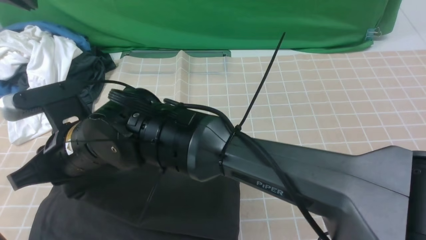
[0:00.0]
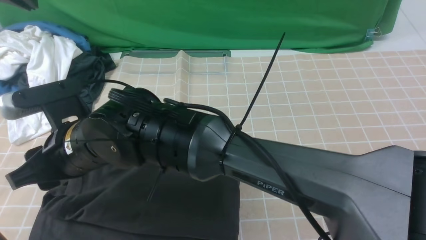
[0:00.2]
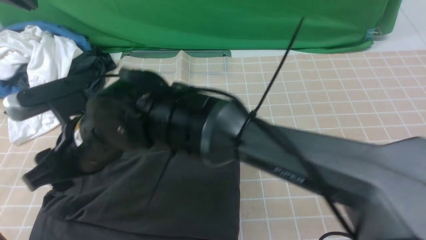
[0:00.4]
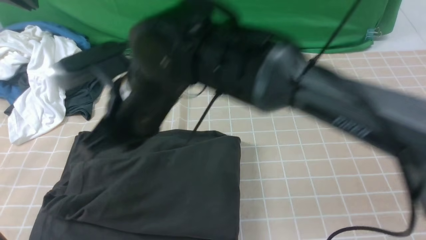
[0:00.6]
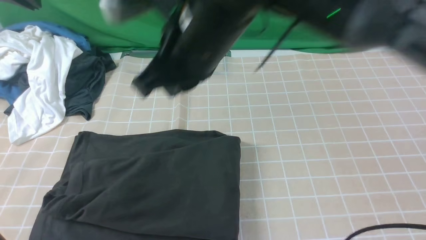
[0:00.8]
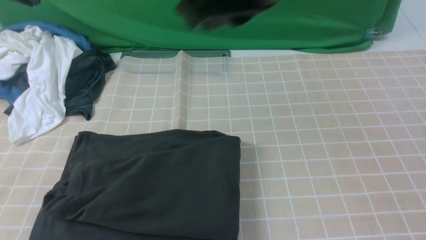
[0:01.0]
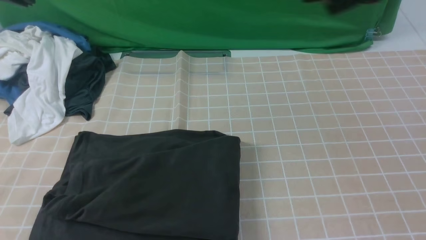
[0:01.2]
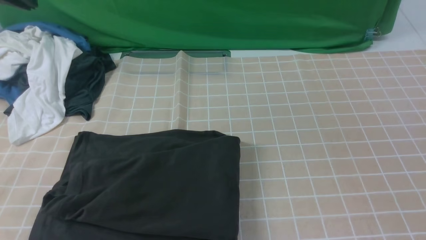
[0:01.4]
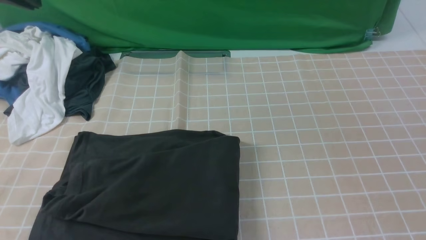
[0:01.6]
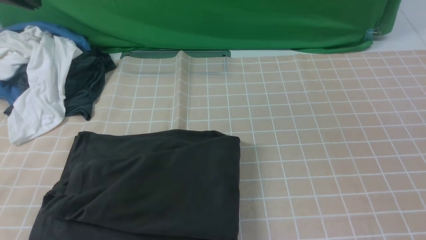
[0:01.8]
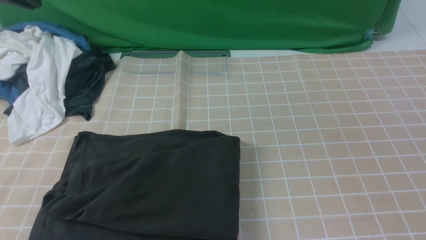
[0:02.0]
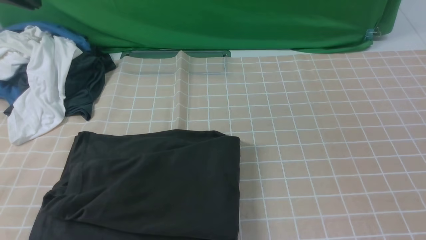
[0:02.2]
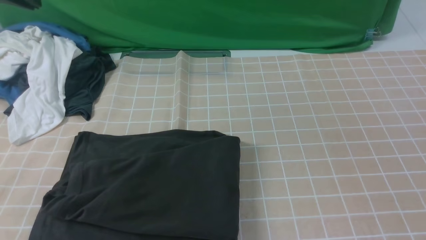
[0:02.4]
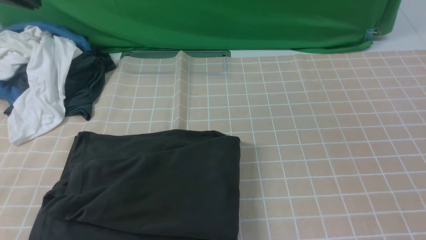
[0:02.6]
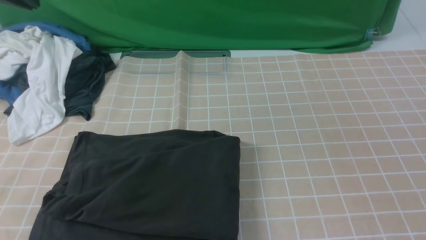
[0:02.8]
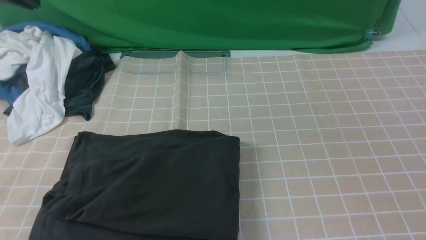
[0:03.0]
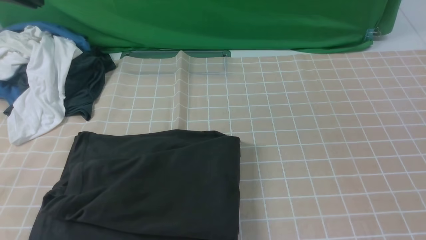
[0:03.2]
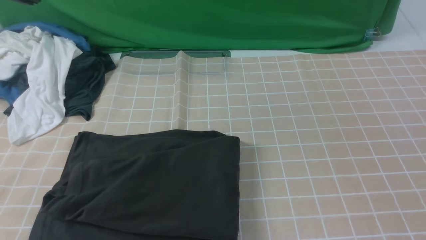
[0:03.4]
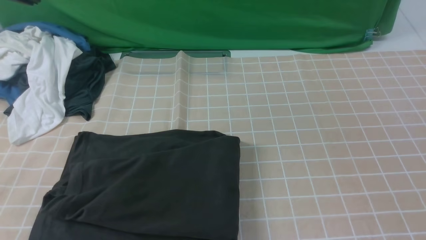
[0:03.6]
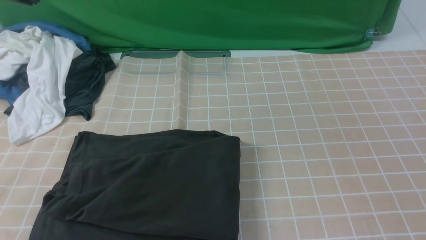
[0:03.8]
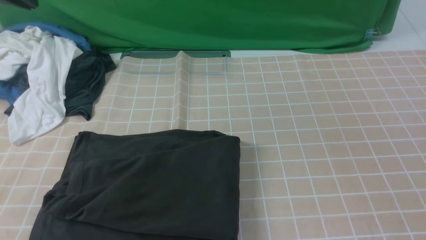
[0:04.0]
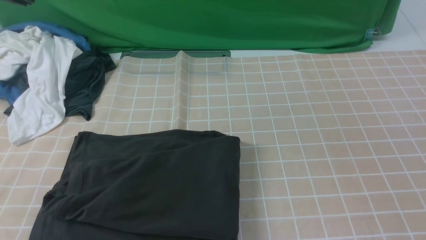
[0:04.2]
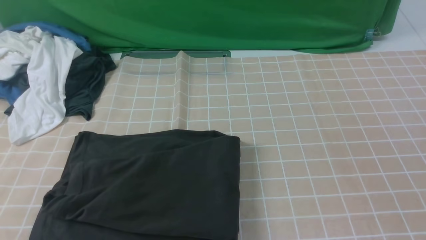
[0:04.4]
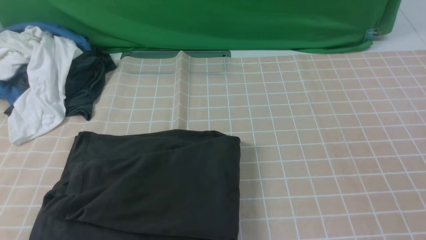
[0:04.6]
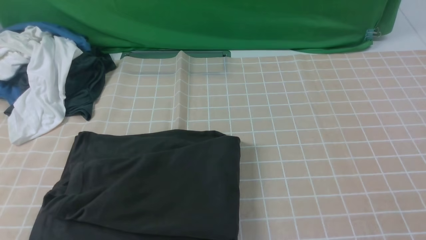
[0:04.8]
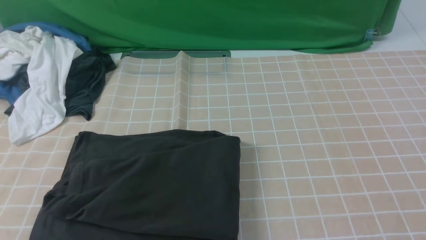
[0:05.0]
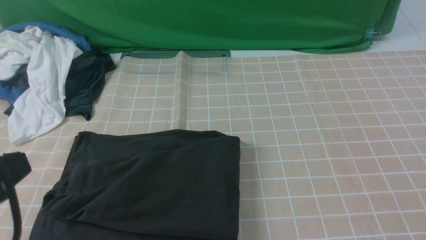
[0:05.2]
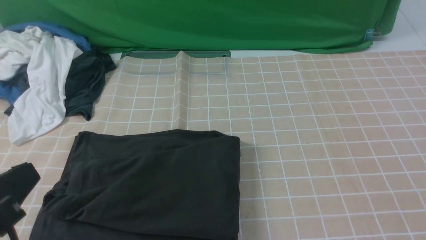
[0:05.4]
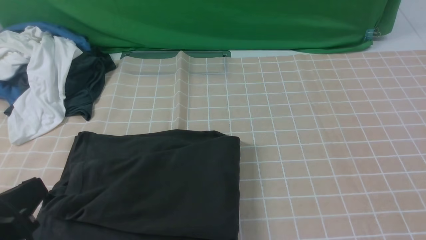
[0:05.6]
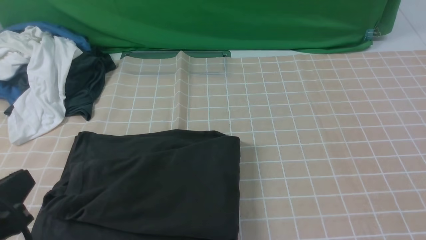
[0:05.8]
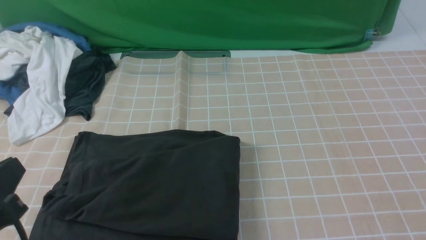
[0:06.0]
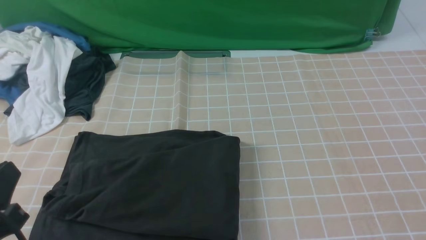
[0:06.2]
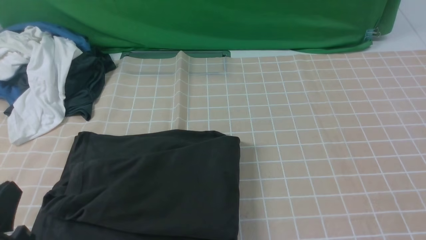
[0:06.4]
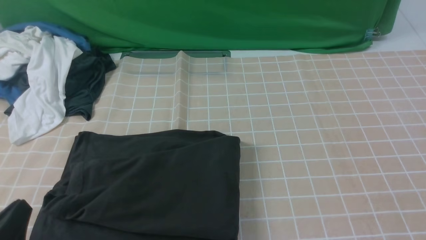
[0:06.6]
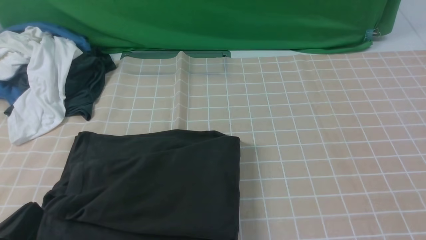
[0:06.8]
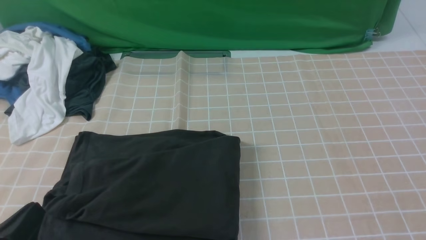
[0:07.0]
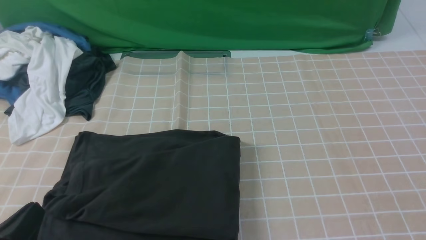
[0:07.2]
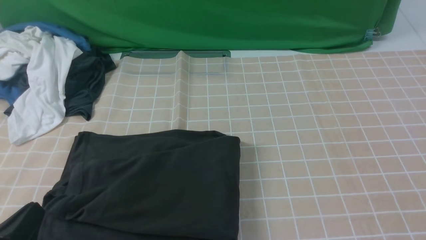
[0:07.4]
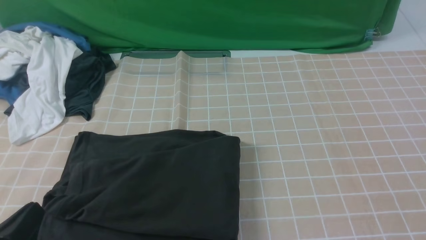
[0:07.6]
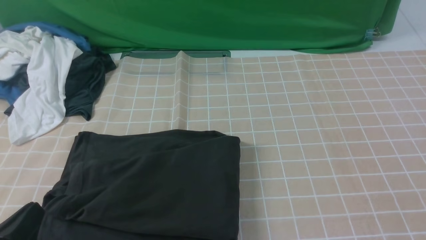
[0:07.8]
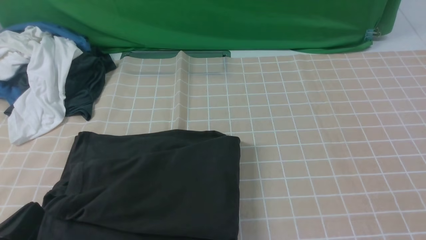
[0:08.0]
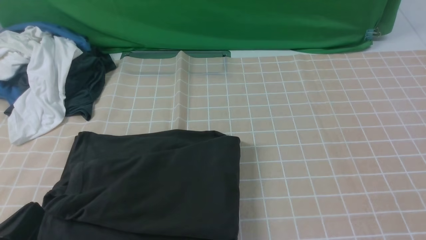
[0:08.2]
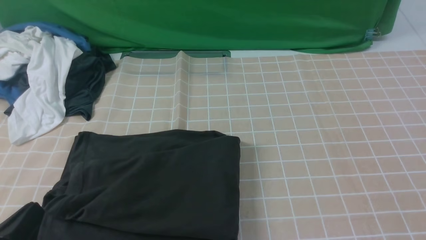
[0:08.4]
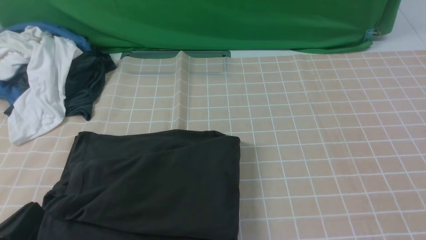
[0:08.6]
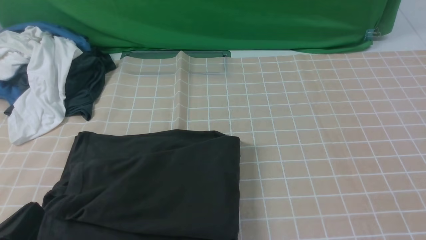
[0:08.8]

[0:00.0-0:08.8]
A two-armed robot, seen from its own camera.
0:00.0 to 0:01.4: The right gripper is displaced to the right and upward by some 50 cm, and closes up.
0:04.4 to 0:05.8: The left gripper goes about 30 cm downward and backward.
0:05.8 to 0:07.4: The left gripper moves downward, roughly 10 cm.
0:07.4 to 0:08.8: Neither gripper changes place.

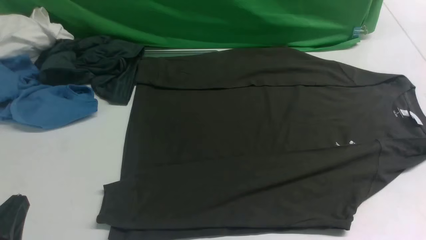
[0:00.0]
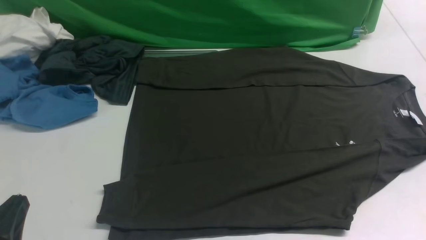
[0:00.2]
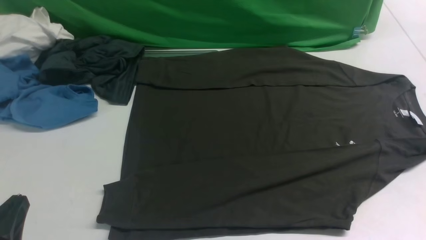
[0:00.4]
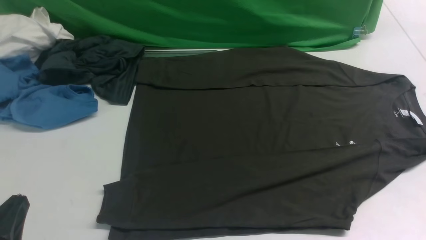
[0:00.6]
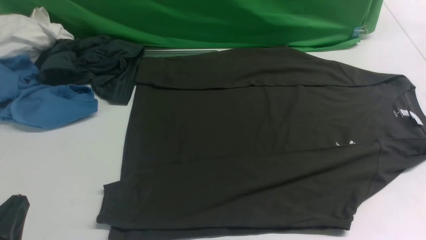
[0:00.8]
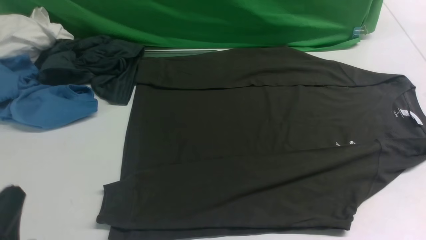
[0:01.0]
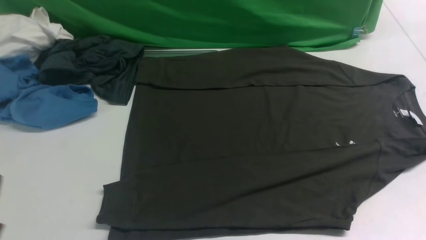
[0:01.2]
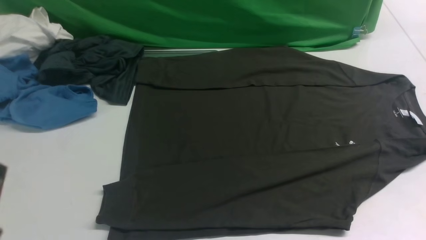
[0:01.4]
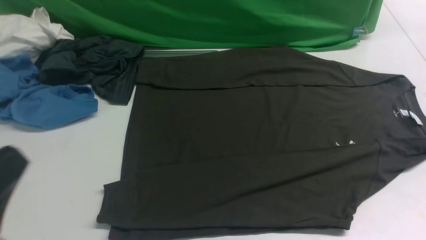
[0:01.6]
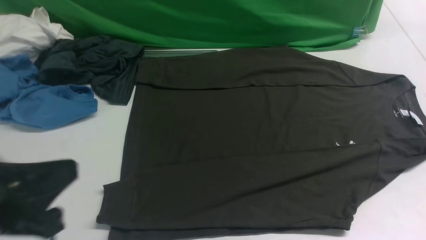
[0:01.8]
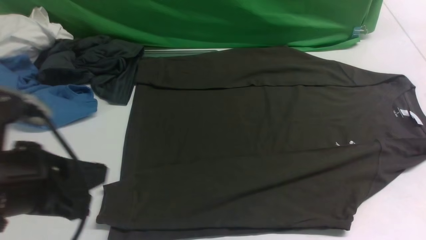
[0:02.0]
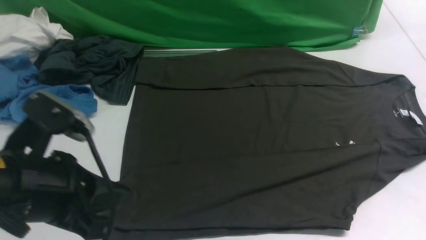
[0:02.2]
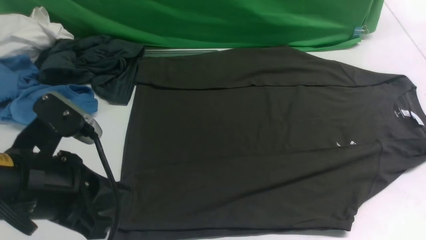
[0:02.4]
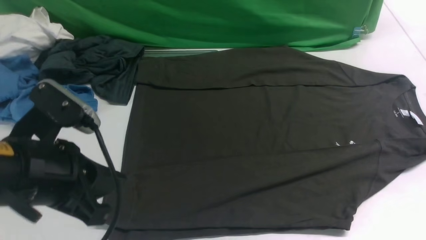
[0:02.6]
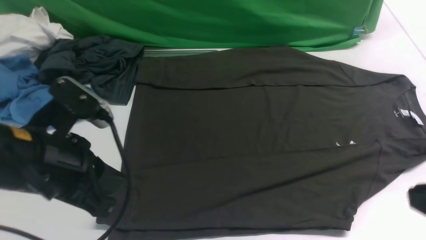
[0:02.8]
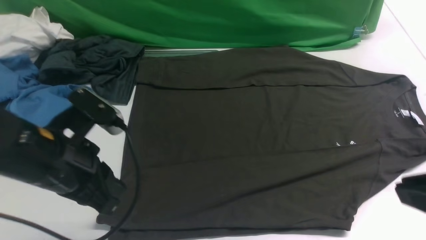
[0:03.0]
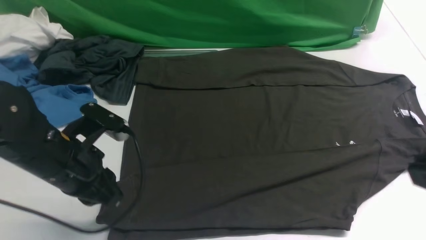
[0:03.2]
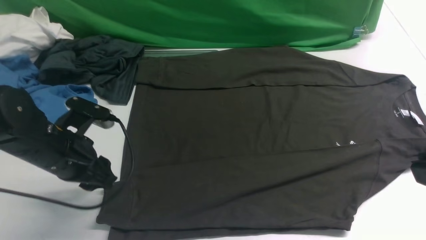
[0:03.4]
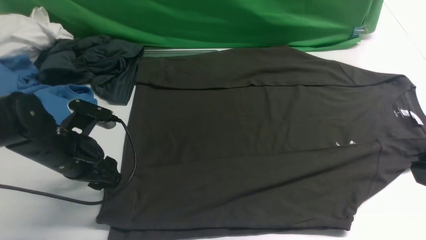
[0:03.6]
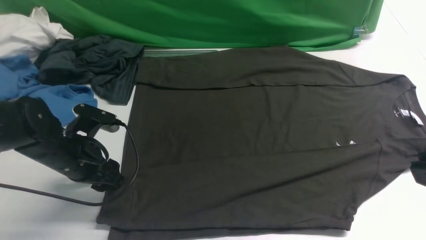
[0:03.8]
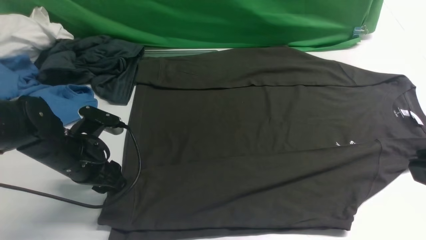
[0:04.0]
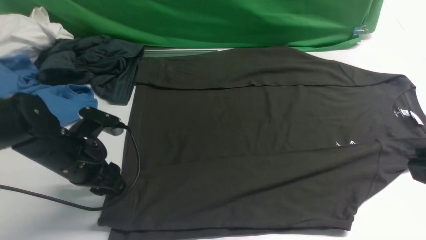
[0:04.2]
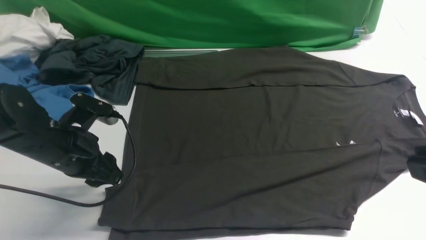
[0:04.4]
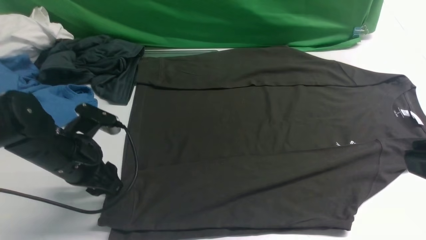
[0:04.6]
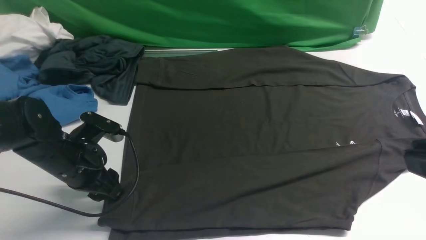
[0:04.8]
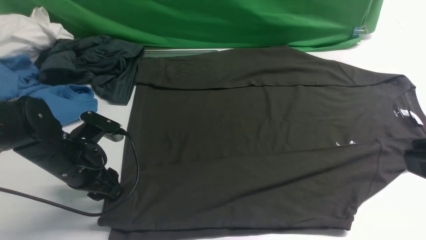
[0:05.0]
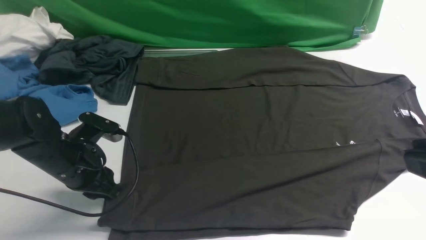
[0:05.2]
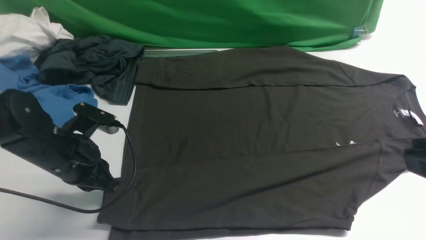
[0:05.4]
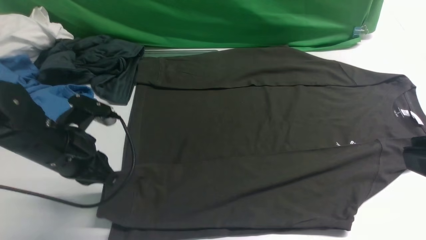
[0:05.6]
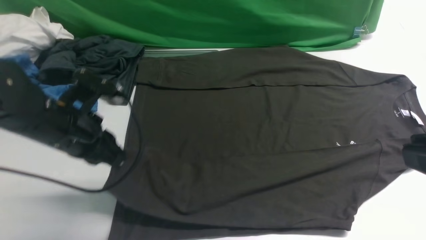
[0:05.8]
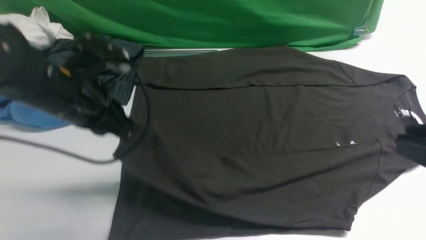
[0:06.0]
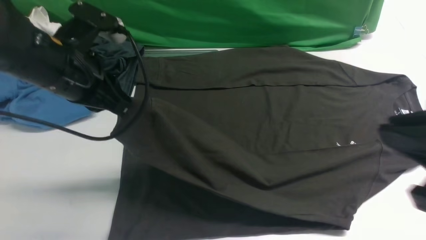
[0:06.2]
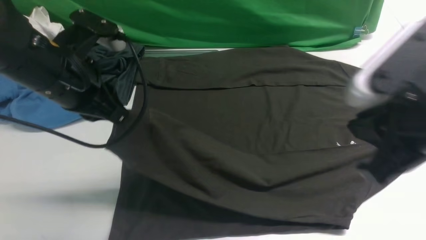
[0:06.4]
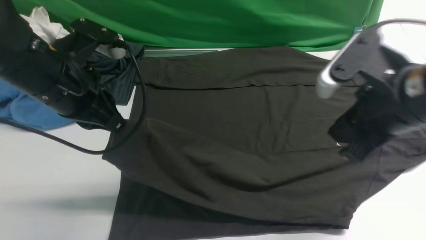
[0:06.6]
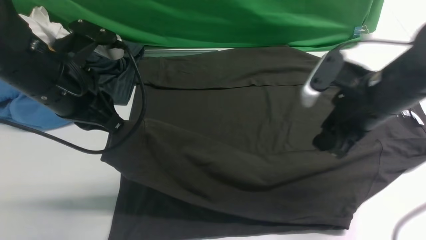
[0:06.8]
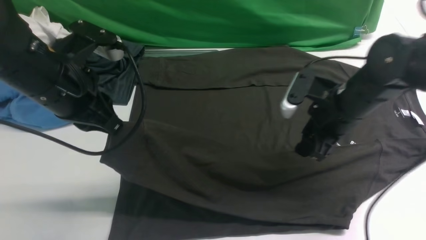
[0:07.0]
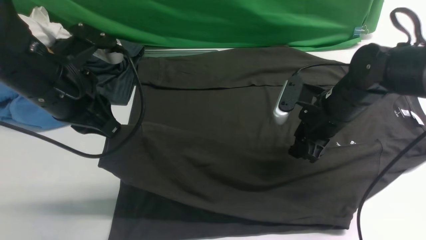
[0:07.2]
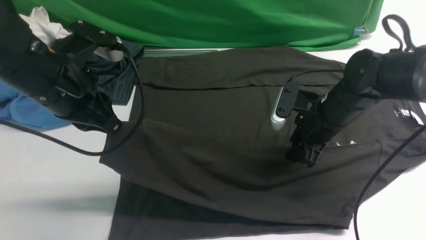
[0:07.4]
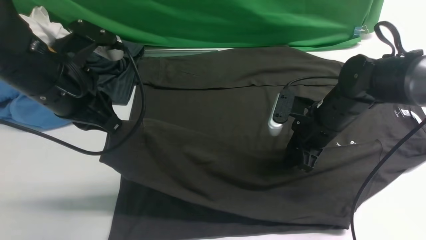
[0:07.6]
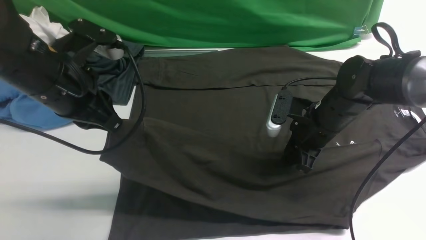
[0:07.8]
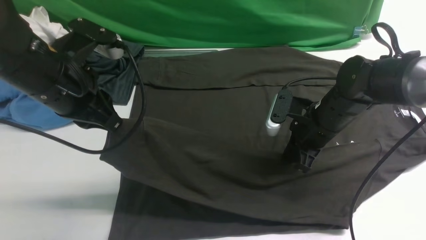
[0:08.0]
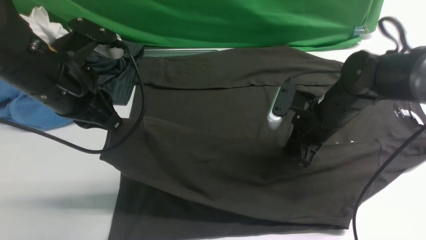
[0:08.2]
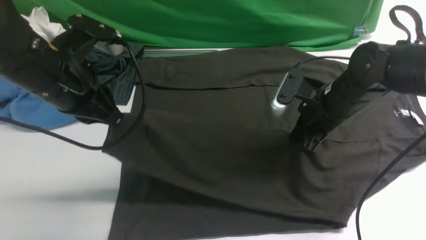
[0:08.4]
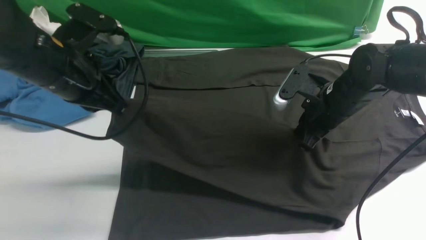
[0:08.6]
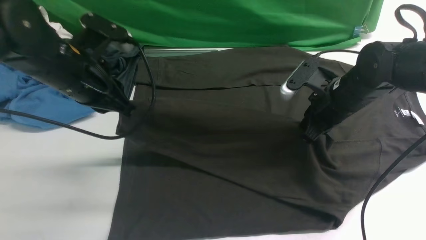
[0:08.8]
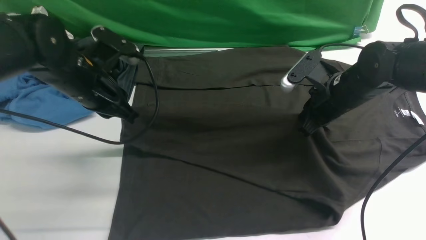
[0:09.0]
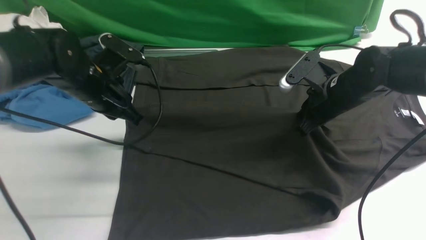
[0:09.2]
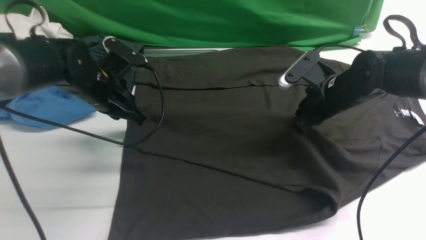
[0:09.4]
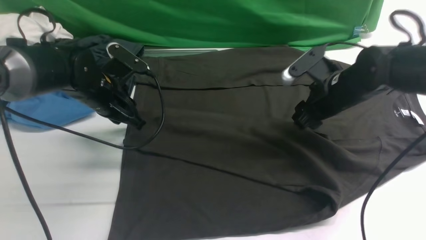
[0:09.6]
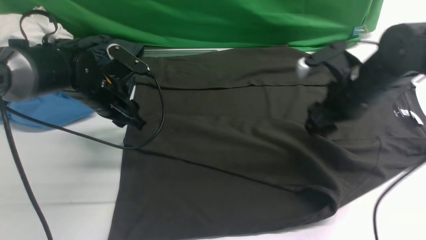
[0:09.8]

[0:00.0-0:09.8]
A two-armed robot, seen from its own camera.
Step, 0:00.0 to 0:05.4: use the left arm to clamp the cuff closest to it.
0:00.0 to 0:01.4: The left gripper moves upward, about 5 cm.
0:01.4 to 0:02.8: The left gripper travels forward by some 15 cm; the right gripper shifts roughly 10 cm upward.
0:02.8 to 0:04.2: The right gripper travels upward by about 5 cm, while the left gripper travels downward and forward by roughly 15 cm, and opens up.
0:04.2 to 0:05.6: The left gripper closes up.
0:05.6 to 0:07.0: The left gripper is displaced upward by about 10 cm. Meanwhile the right gripper moves forward and downward, roughly 30 cm, and opens up.
0:07.0 to 0:08.4: The right gripper closes.
0:08.4 to 0:09.8: The left gripper goes about 15 cm downward and forward, and opens; the right gripper opens its fingers.
